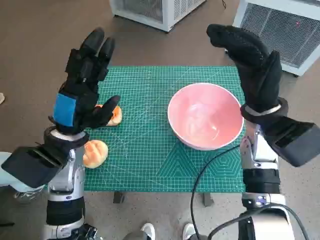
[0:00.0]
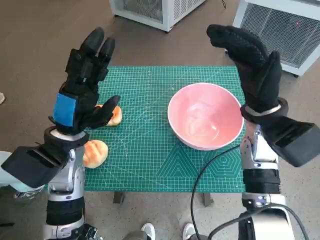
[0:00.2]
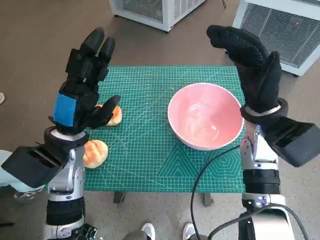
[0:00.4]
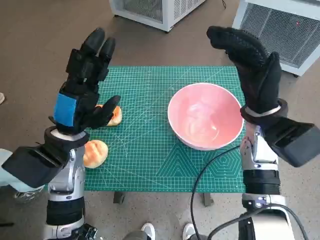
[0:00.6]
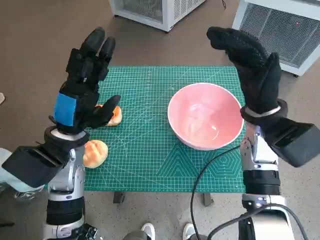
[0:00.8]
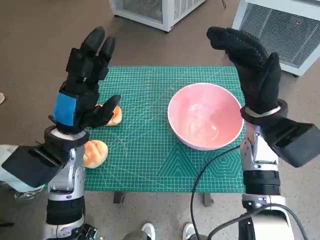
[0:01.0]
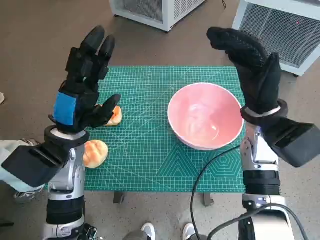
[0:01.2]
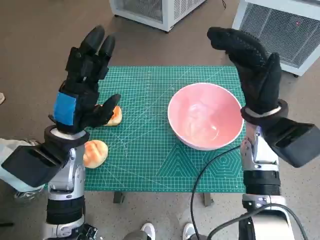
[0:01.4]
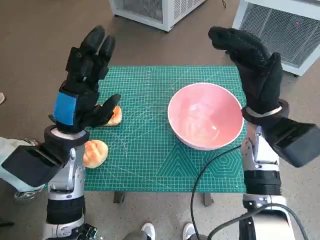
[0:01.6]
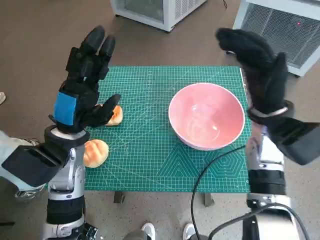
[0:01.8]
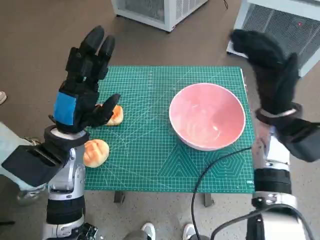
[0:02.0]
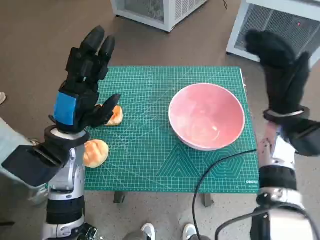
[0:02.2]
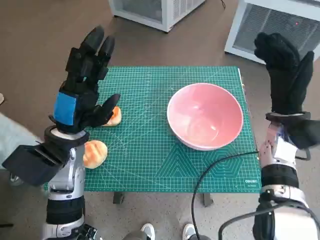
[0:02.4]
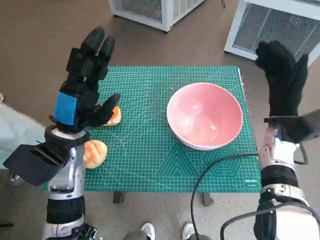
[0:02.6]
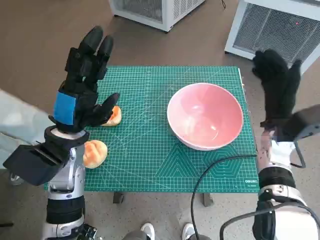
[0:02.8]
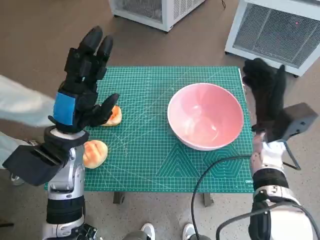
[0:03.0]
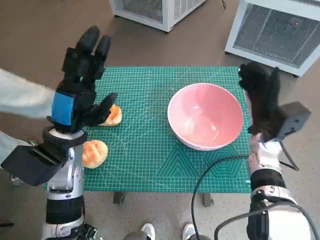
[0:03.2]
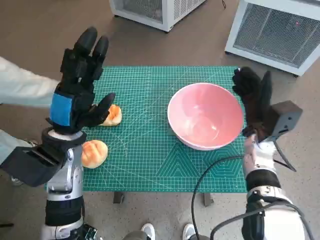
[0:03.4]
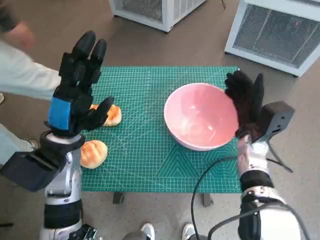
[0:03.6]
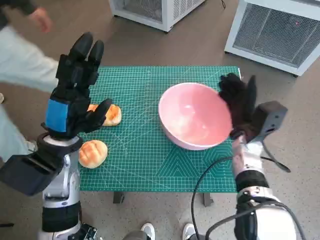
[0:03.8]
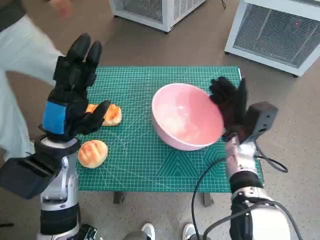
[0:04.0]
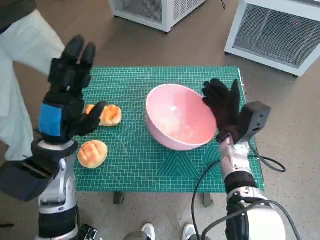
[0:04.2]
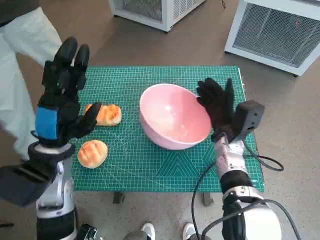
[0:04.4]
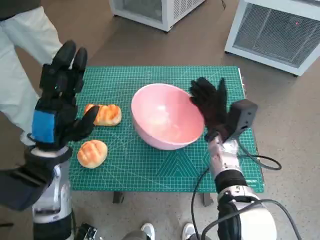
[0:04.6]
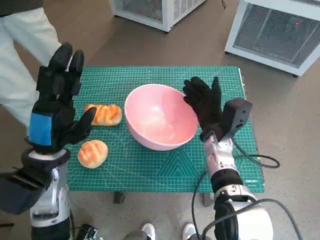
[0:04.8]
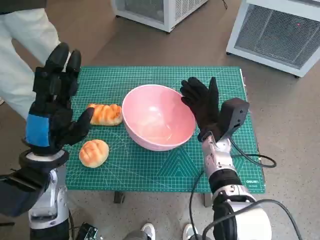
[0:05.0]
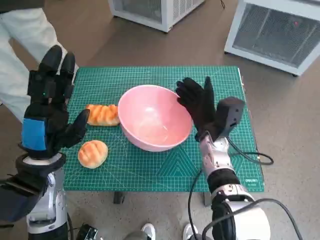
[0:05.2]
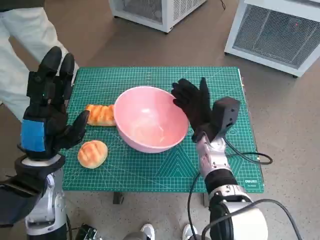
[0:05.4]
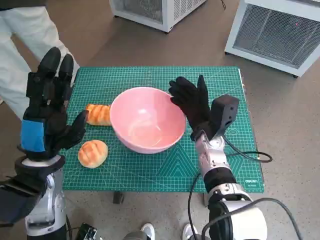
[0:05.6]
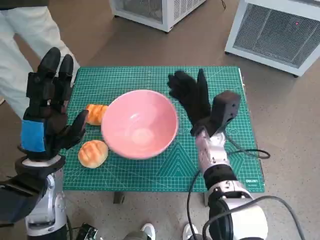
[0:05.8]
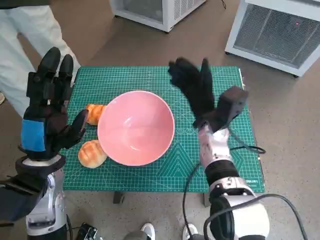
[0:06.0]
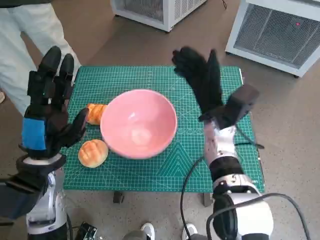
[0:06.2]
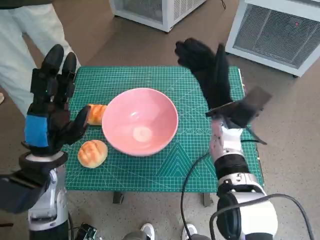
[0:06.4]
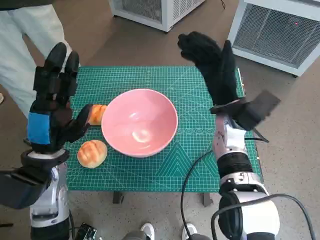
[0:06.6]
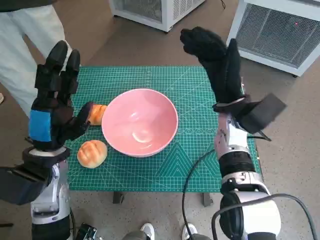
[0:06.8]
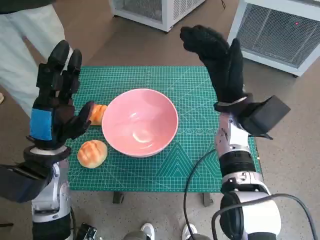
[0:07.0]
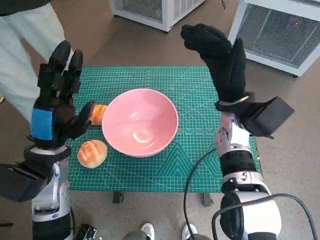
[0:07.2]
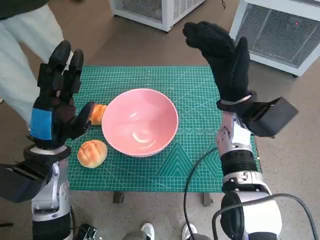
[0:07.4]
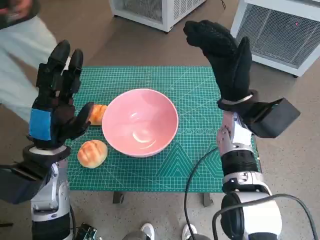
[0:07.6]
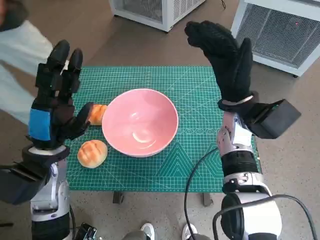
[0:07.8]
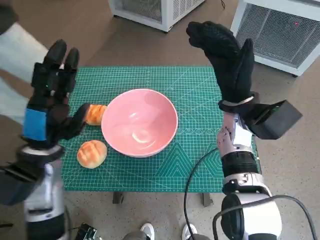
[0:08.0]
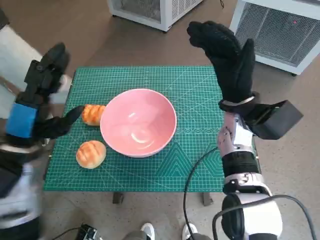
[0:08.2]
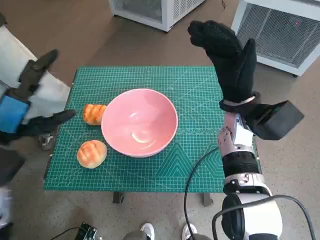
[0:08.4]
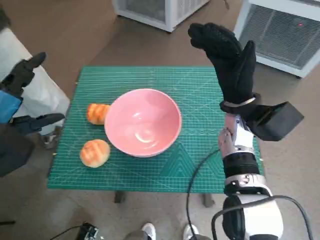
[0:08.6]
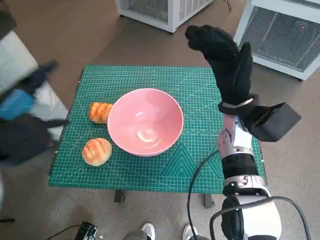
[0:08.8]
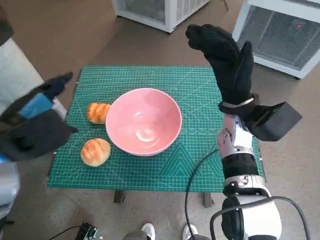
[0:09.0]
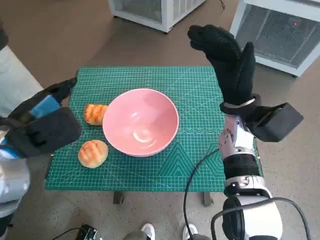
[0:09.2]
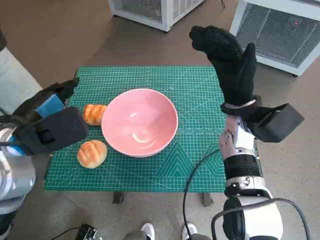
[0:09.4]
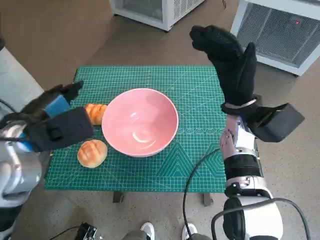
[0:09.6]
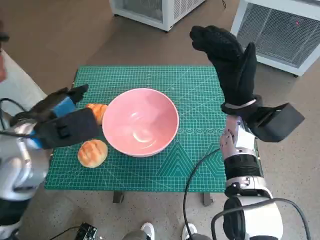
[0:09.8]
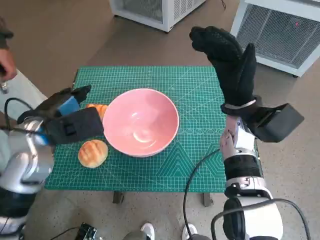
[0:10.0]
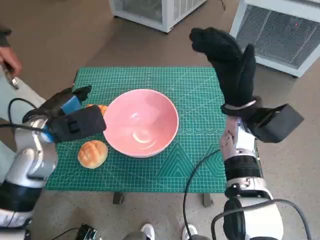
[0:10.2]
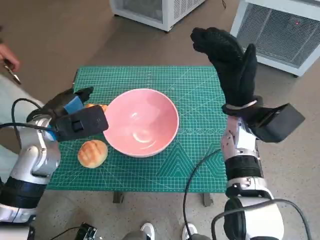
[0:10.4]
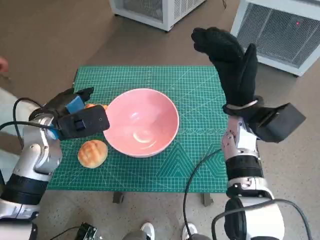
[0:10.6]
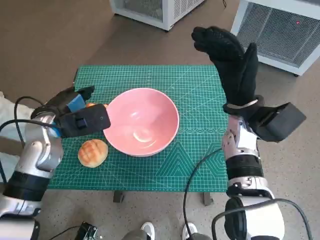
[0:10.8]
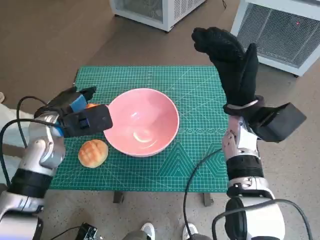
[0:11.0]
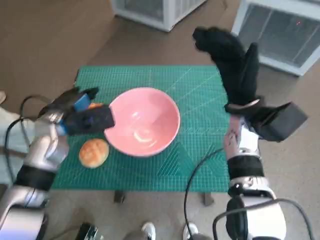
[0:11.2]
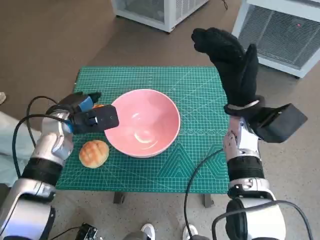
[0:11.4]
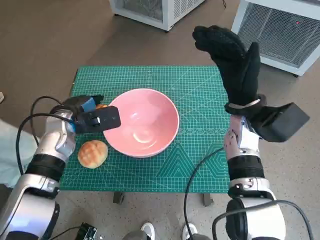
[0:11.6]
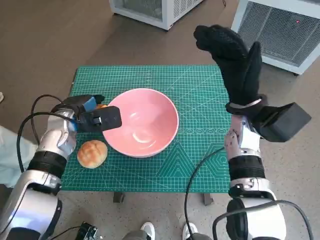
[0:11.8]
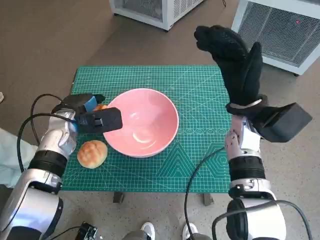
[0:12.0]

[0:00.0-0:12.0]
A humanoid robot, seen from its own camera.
Task of the whole recording: Push the bowl into the center of the table and put the bread into the bowl.
Step, 0:00.0 to 0:06.0: Move the pink bowl to the center of table with right hand.
0:01.6 to 0:03.0: The right hand goes roughly 10 cm downward.
0:03.0 to 0:04.4: The right hand is displaced to the left by approximately 10 cm.
0:04.4 to 0:06.0: The right hand shifts by roughly 5 cm.
0:06.0 to 0:07.6: The right hand is displaced upward by roughly 5 cm.
0:07.6 to 0:09.0: The left hand shifts about 5 cm upward.
0:09.0 to 0:10.4: The left hand moves forward and downward, some 10 cm.
0:10.4 to 0:12.0: The left hand moves about 5 cm.

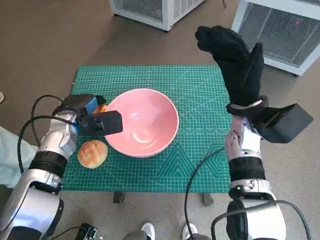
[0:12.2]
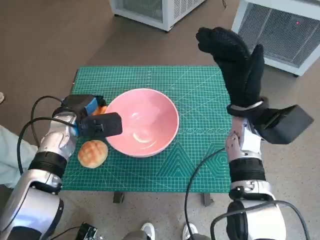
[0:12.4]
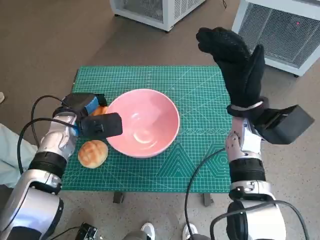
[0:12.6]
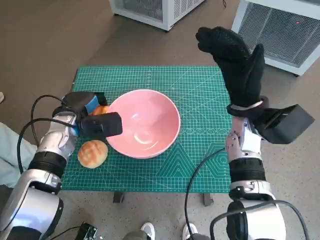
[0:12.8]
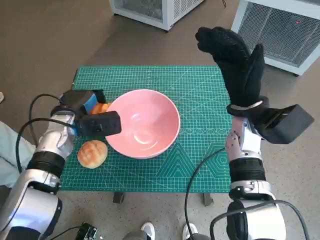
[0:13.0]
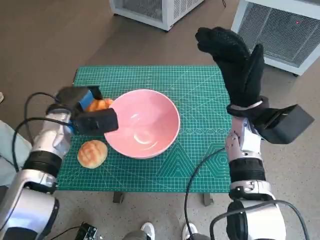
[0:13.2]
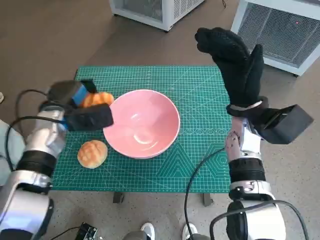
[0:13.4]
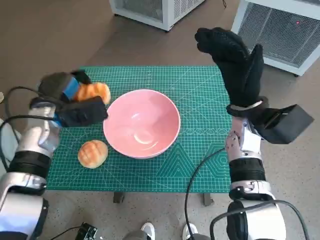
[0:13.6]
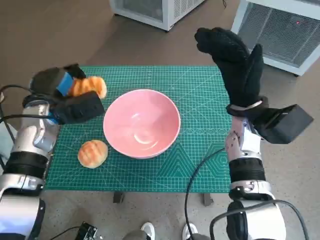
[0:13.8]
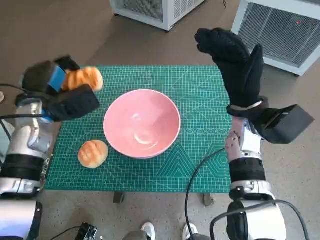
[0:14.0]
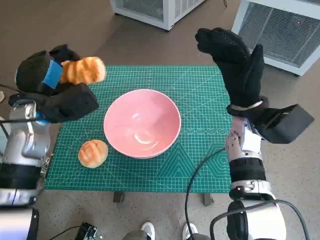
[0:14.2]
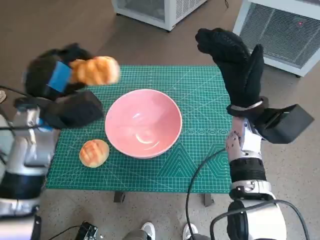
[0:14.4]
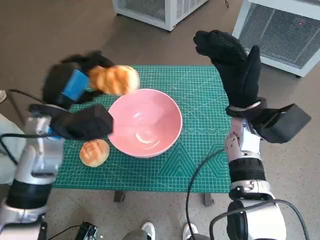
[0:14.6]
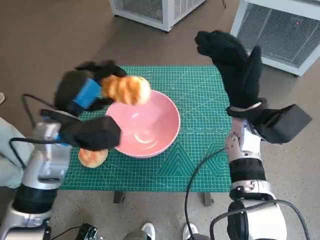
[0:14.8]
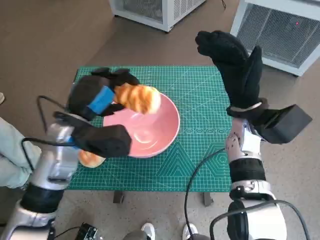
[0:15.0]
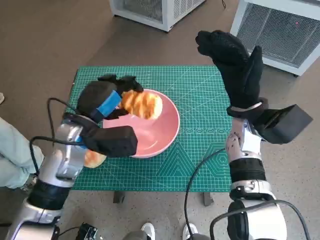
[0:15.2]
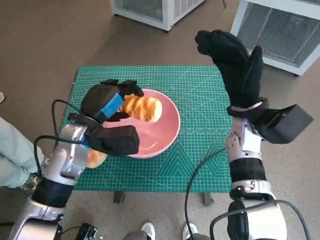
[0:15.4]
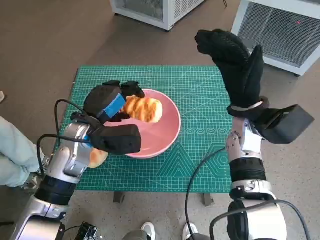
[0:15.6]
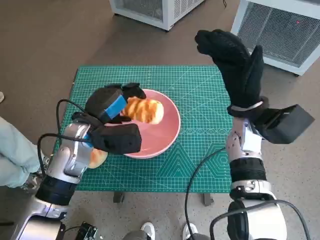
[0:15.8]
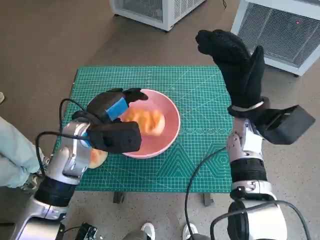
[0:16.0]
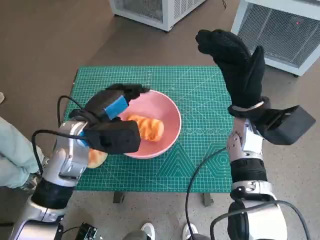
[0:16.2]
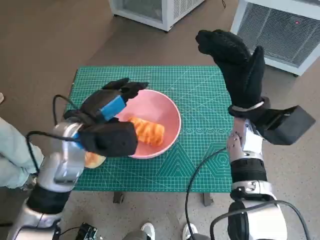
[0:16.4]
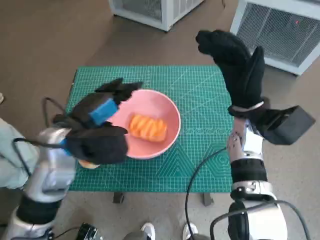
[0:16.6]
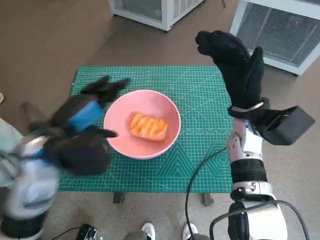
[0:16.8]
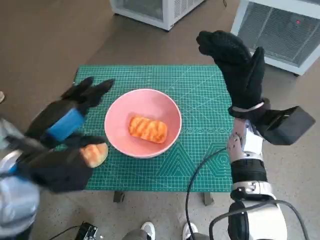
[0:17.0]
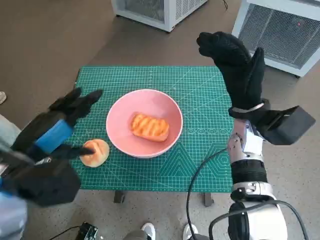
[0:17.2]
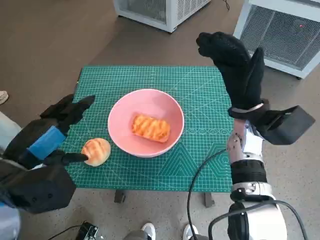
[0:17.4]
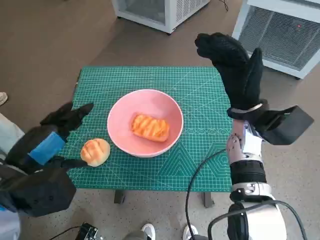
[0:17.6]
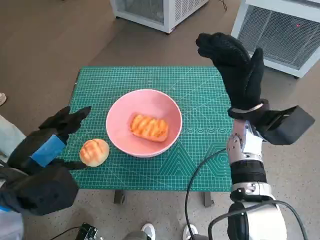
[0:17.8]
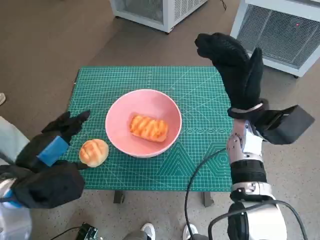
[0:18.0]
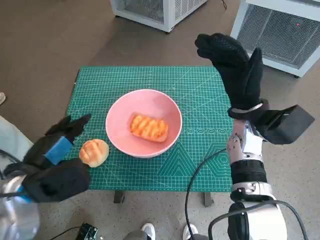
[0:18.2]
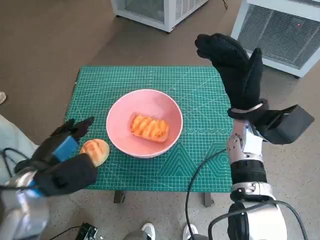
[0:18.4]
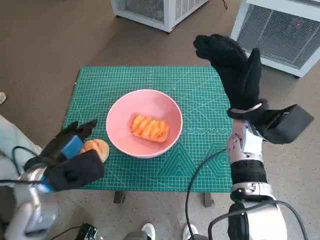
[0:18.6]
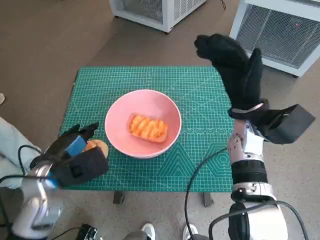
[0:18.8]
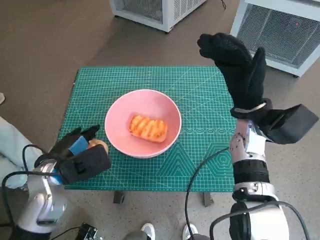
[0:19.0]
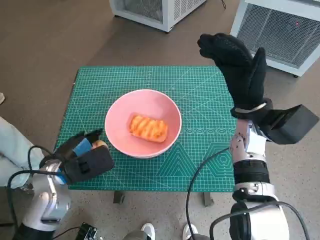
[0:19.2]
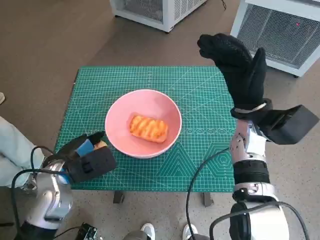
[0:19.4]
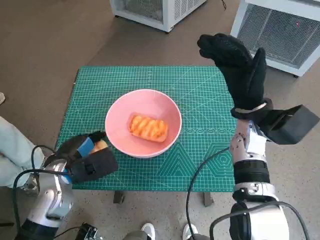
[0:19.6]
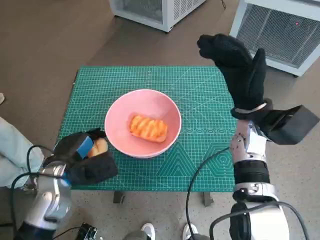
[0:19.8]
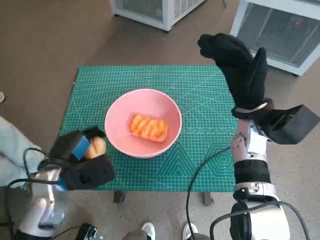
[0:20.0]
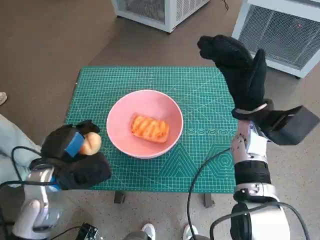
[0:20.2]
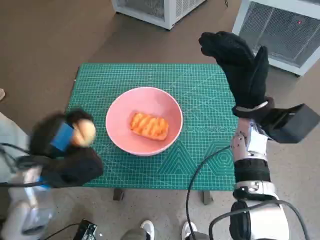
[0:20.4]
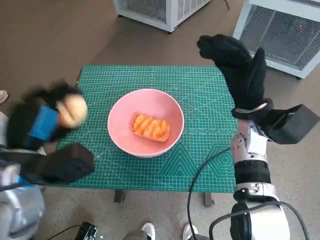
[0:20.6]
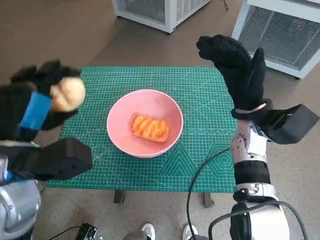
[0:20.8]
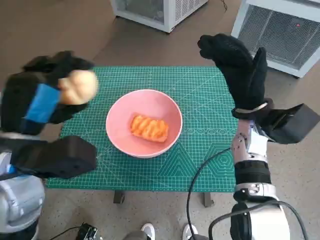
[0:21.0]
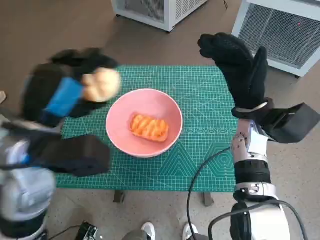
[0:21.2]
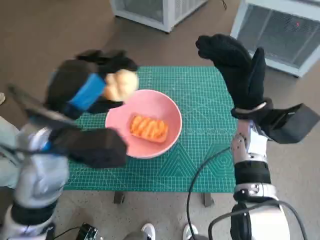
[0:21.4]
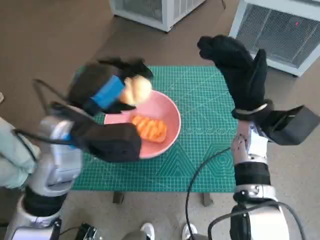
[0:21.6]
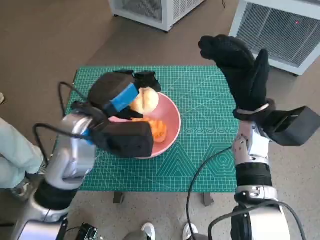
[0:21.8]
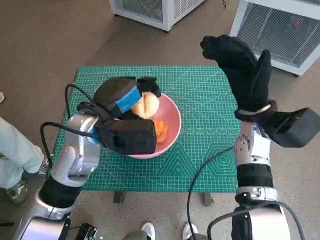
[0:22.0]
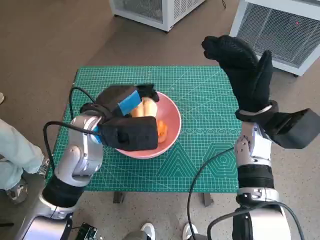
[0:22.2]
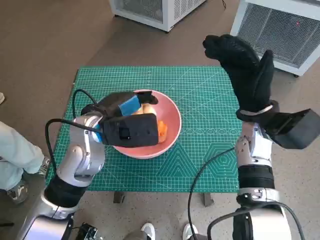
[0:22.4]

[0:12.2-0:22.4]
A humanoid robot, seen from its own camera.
Task of the whole recording: Push the bowl into the center of the table and put the bread into the bowl.
Step, 0:12.6 to 0:16.4: Place the long bread in pink bowl with left hand.
Step, 0:16.6 to 0:19.4: Grasp the round bread with left hand.
0:12.2 to 0:13.6: The hands stay close to where they were, moving slightly.
0:13.6 to 0:15.2: The left hand shifts about 10 cm to the right.
0:15.2 to 0:16.6: The left hand shifts by roughly 5 cm.
0:16.6 to 0:18.0: The left hand is displaced backward and to the left by approximately 10 cm.
0:18.0 to 0:19.4: The left hand moves downward and forward, roughly 10 cm.
0:19.4 to 0:21.0: The left hand shifts some 15 cm upward.
0:21.0 to 0:22.4: The left hand heads forward, to the right and downward, covering some 10 cm.
